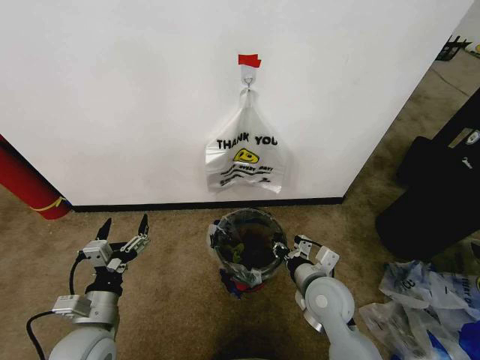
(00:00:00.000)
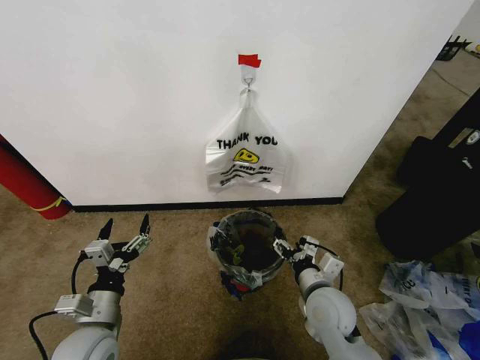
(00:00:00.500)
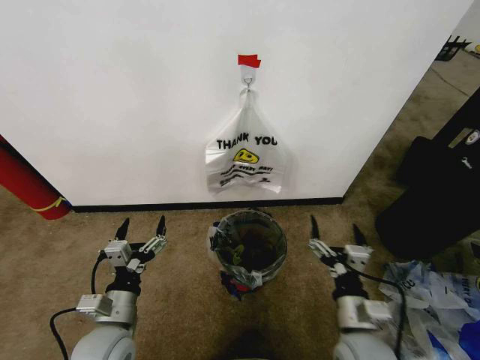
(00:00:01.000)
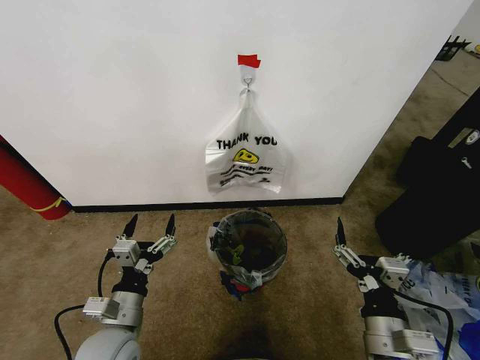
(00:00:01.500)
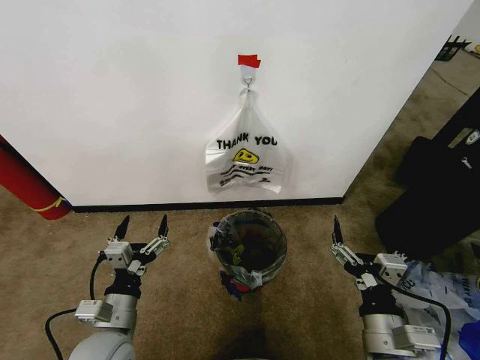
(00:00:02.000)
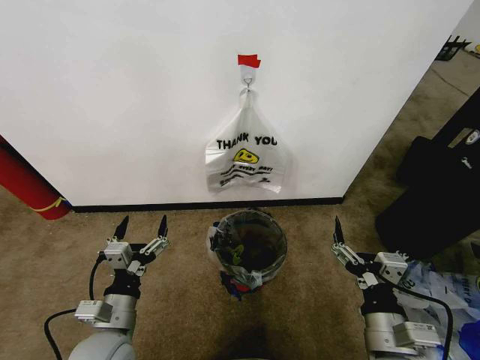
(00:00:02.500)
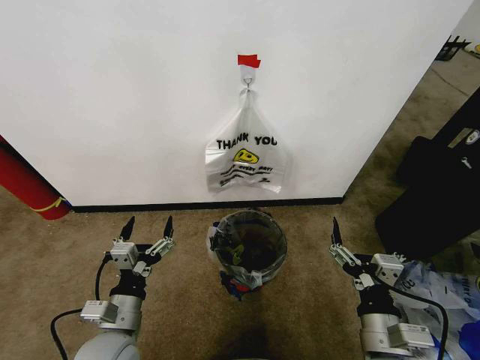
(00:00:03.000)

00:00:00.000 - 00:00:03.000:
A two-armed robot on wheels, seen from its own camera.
Task of the whole recording: Pick up the garbage bag from the wall and place it over the trash bin.
00:00:00.000 - 00:00:01.500: The right gripper moves backward, approximately 15 cm, and opens its fingers.
00:00:01.500 - 00:00:03.000: There are only small adjustments of the grippers.

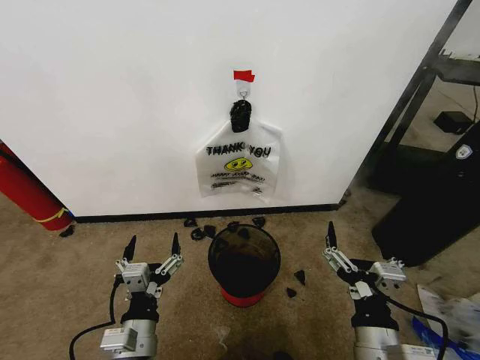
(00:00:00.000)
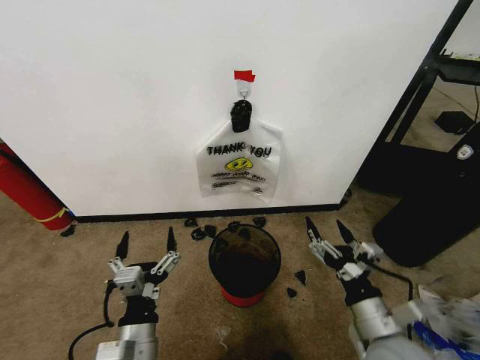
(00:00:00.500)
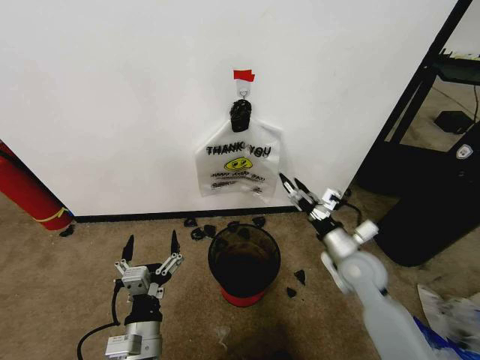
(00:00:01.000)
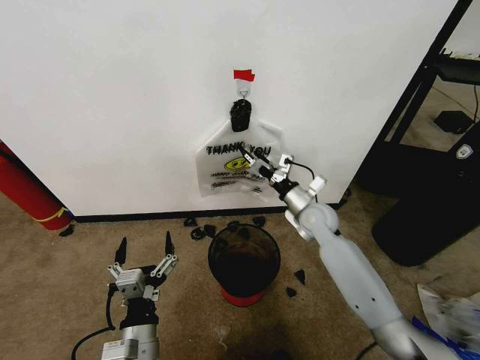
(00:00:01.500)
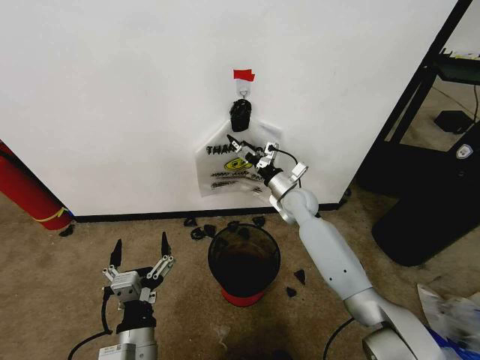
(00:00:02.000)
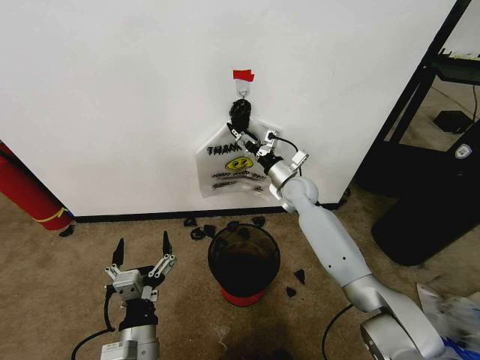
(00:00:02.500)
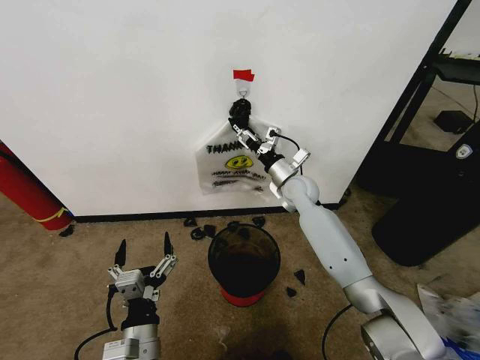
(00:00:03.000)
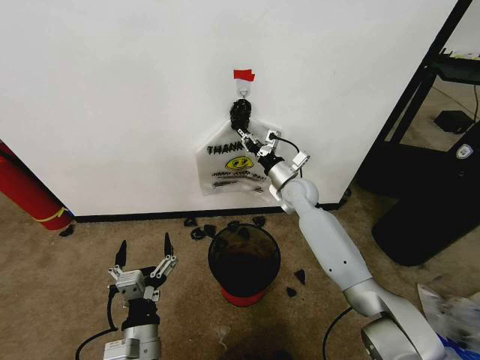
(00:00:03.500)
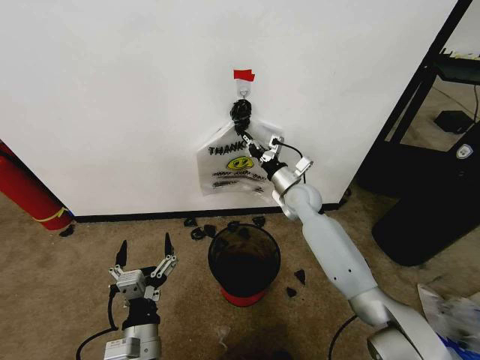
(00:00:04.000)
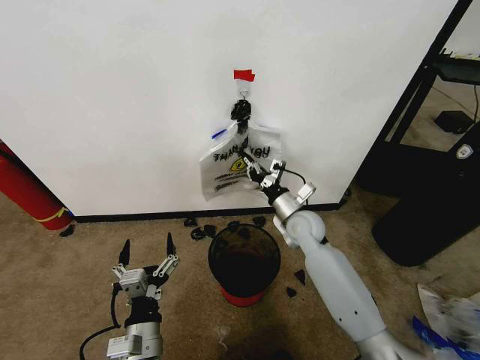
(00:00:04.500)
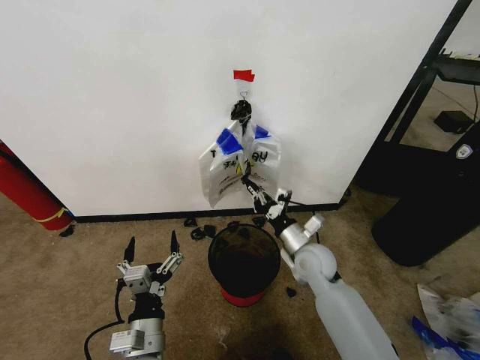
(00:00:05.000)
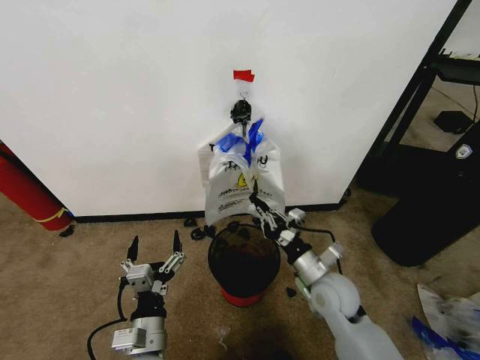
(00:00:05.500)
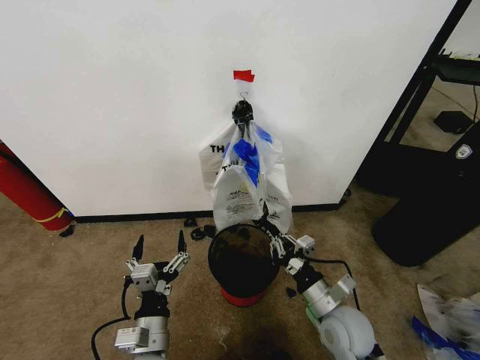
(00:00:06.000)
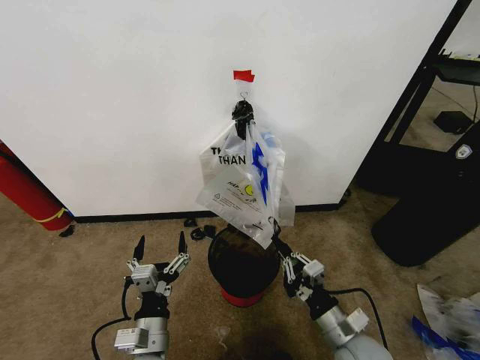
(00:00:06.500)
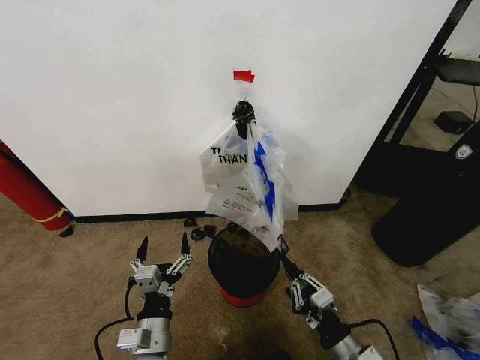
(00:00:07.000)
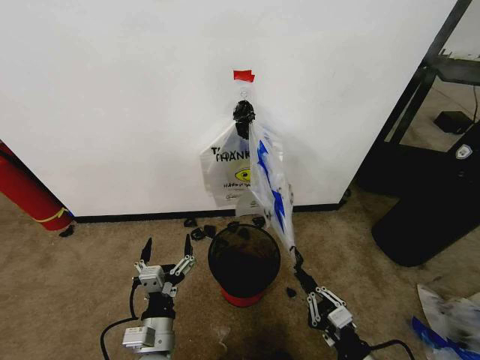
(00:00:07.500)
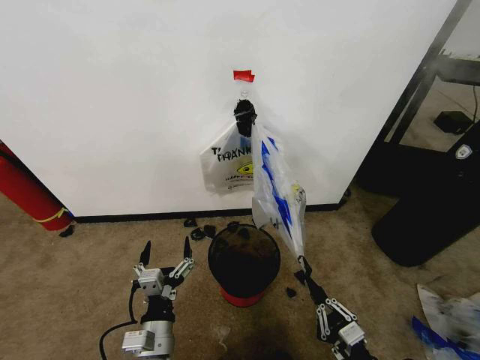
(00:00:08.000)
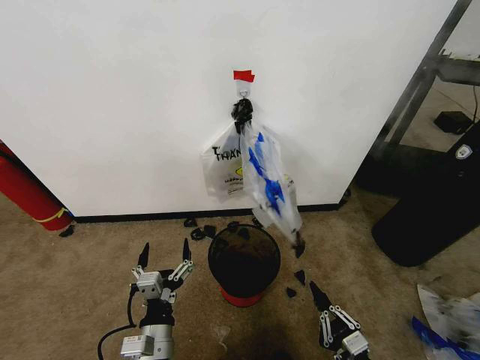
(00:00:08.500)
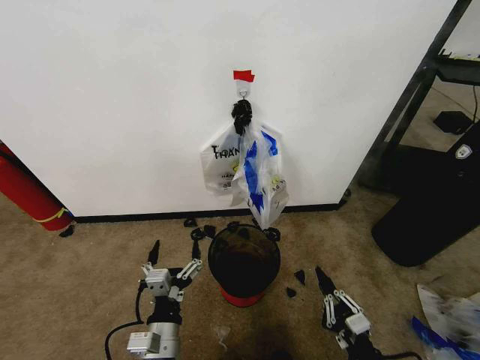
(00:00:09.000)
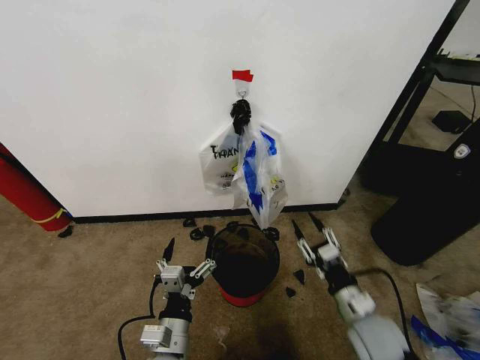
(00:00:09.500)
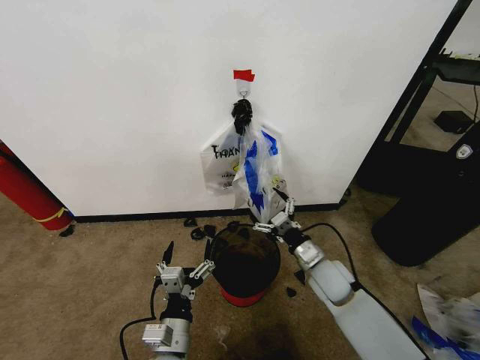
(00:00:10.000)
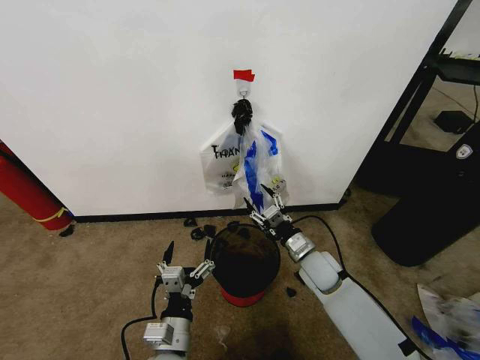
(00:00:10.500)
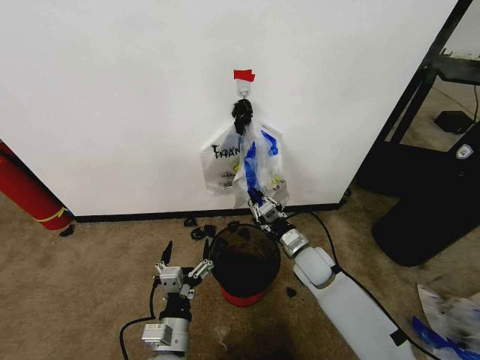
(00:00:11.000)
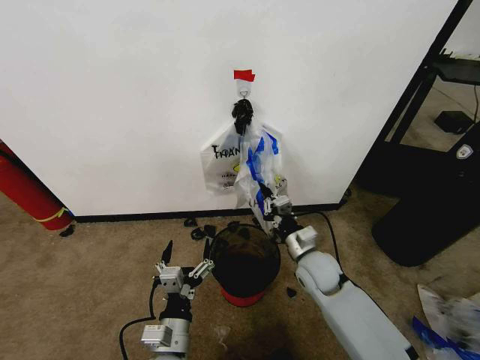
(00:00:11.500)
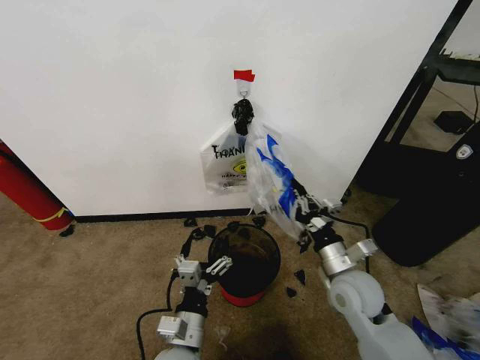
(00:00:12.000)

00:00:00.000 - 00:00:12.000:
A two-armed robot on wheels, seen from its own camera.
Task of the whole recording: Pick up the garbage bag from the wall and place it over the trash bin.
00:00:02.000 - 00:00:04.000: The right gripper closes its fingers.
00:00:04.000 - 00:00:06.000: The right gripper heads backward, covering some 30 cm.
00:00:06.000 - 00:00:08.000: The right gripper moves backward and to the right, roughly 15 cm.
00:00:08.000 - 00:00:10.000: The right gripper is displaced forward by some 25 cm, and opens its fingers.
00:00:10.000 - 00:00:12.000: The right gripper goes roughly 10 cm upward and backward, and closes its fingers.

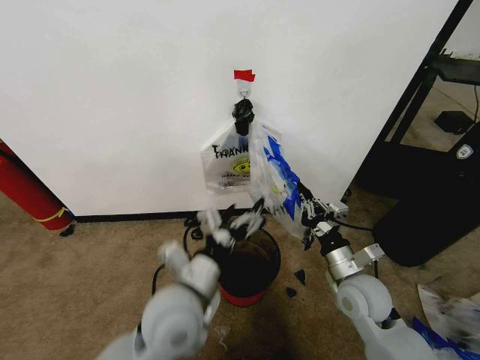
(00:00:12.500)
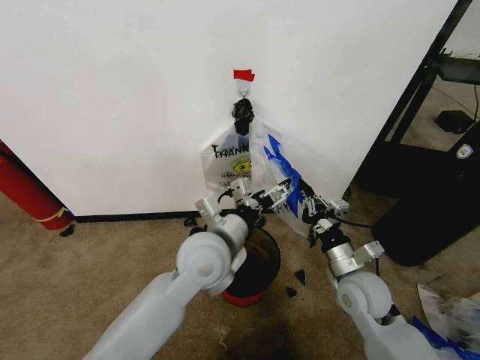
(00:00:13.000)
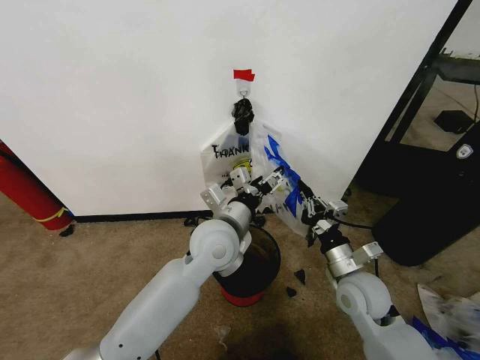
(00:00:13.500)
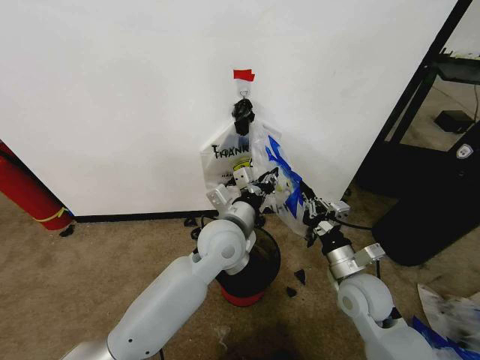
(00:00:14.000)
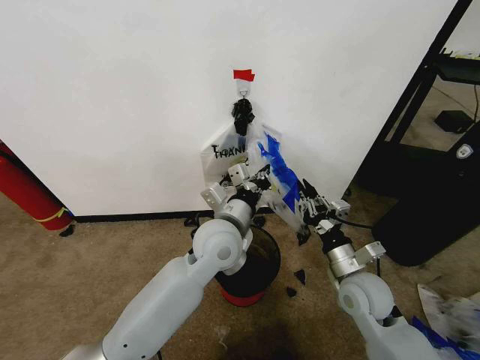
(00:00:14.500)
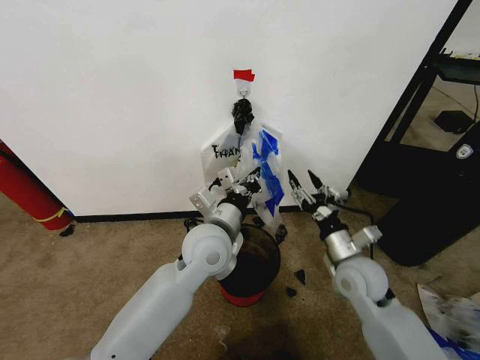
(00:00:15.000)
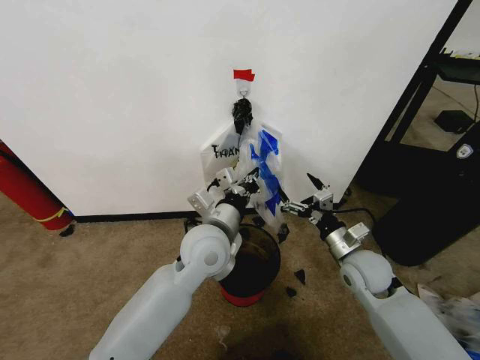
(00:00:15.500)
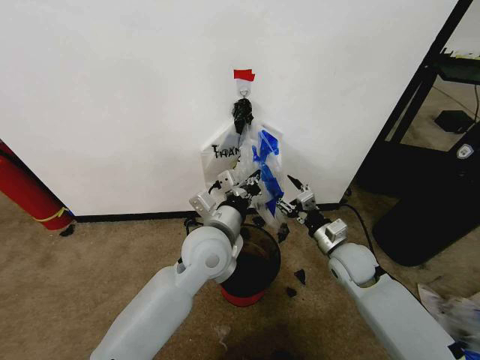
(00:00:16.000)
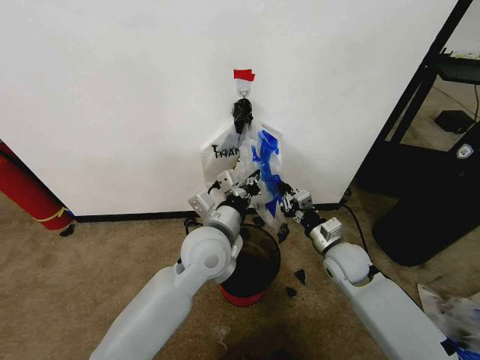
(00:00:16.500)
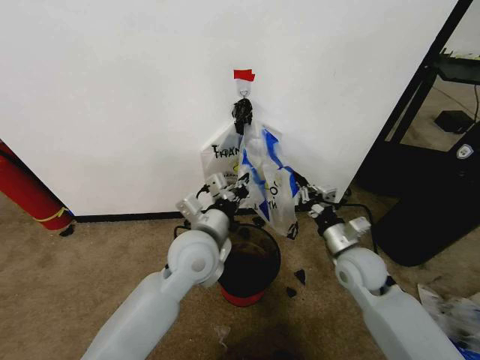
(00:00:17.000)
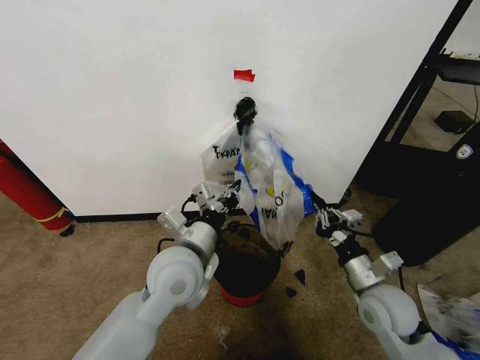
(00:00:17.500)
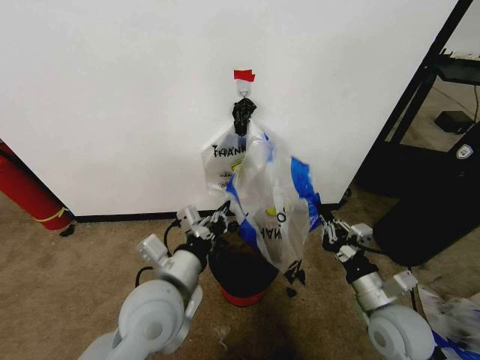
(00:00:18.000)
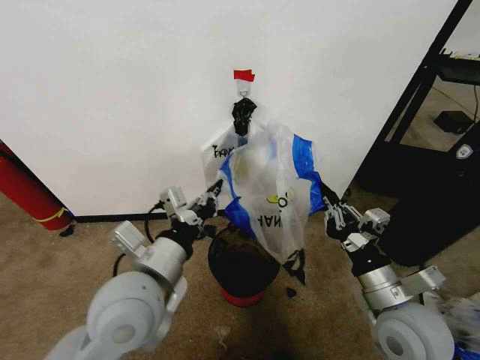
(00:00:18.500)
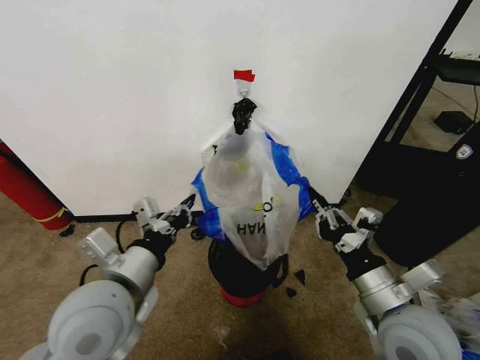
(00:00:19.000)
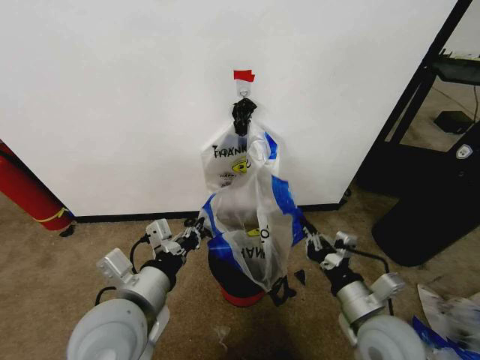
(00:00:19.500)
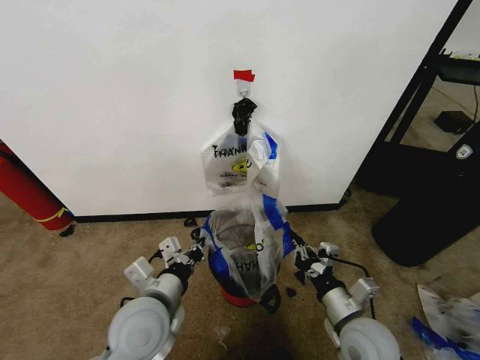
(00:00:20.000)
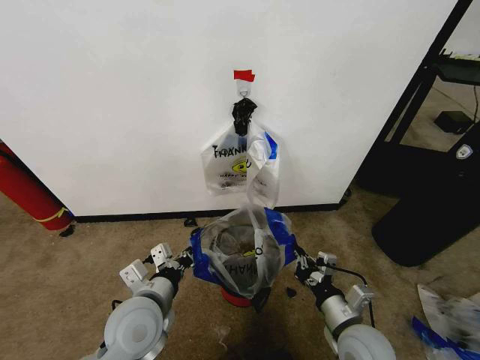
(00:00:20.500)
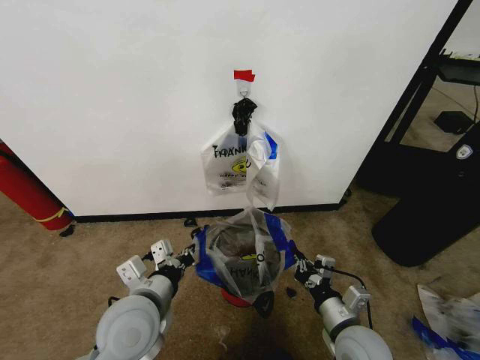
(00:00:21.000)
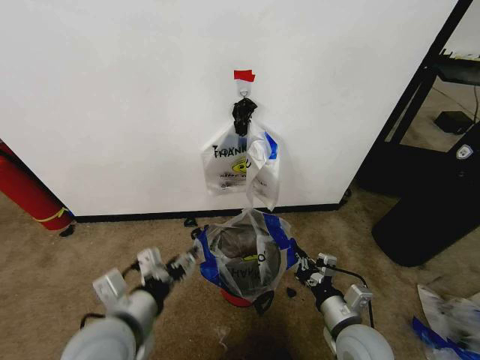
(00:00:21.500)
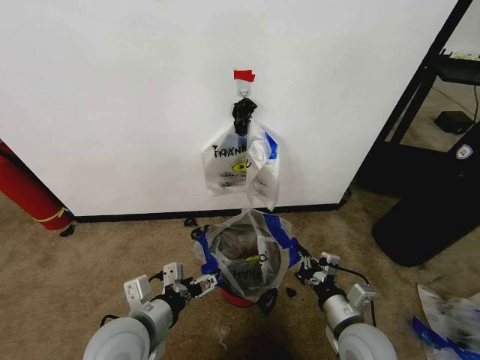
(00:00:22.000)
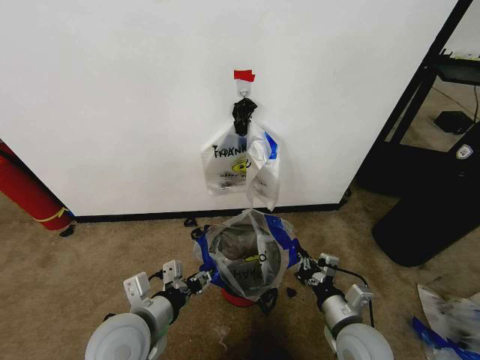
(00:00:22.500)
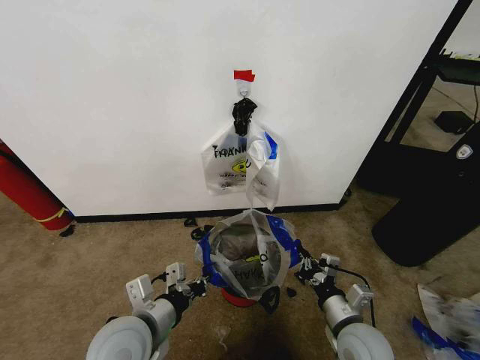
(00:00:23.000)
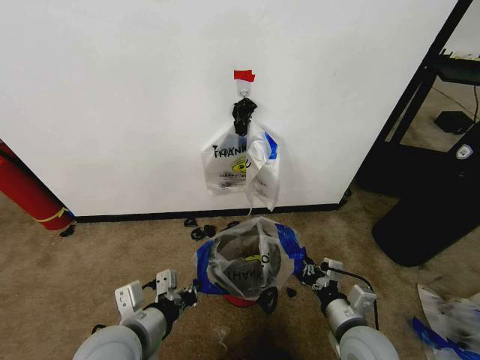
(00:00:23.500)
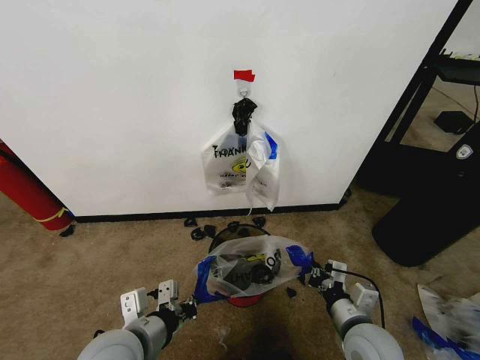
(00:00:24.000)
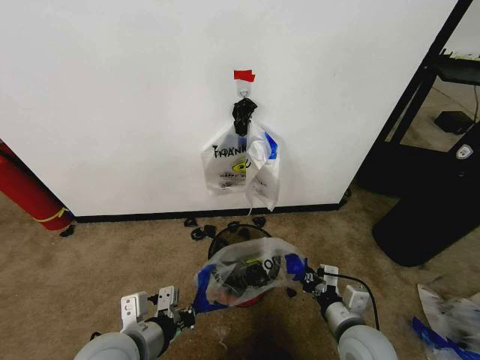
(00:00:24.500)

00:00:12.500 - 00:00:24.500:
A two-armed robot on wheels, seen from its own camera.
Task of the whole recording: Pick up the garbage bag from the wall and place it over the trash bin.
00:00:12.500 - 00:00:14.500: The left gripper heads forward and to the right, covering about 15 cm, and closes its fingers.
00:00:14.500 - 00:00:16.500: The right gripper travels forward by some 10 cm, and opens, then closes once more.
00:00:16.500 - 00:00:18.500: The left gripper goes roughly 15 cm backward and to the left; the right gripper travels backward and upward by approximately 20 cm.
00:00:18.500 - 00:00:20.500: The grippers both shift downward by roughly 10 cm.
00:00:20.500 - 00:00:22.500: The left gripper opens.
00:00:22.500 - 00:00:24.500: The left gripper closes up.
